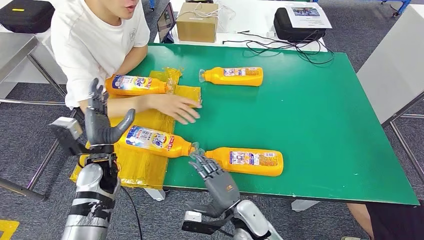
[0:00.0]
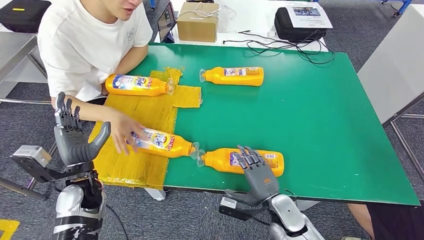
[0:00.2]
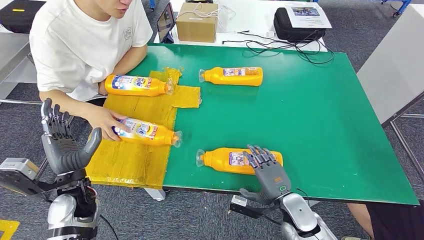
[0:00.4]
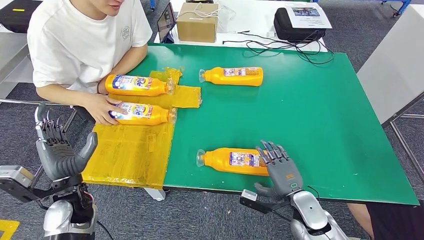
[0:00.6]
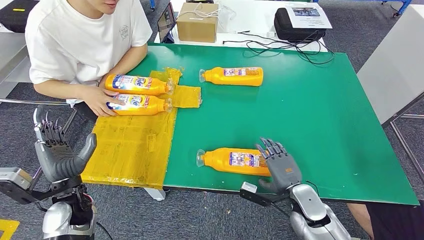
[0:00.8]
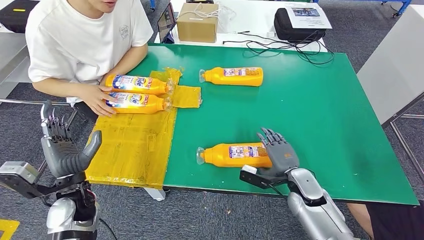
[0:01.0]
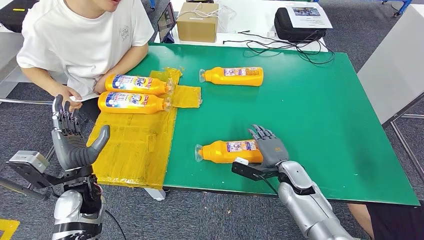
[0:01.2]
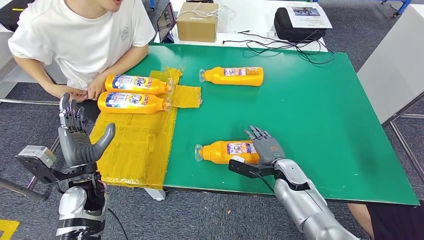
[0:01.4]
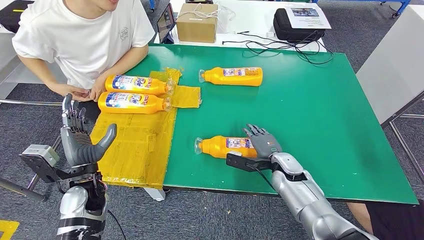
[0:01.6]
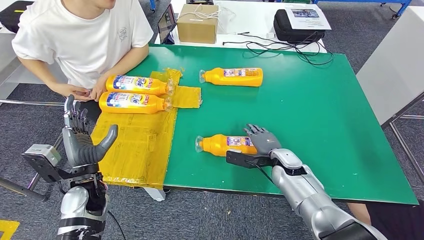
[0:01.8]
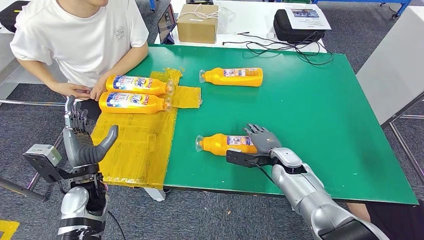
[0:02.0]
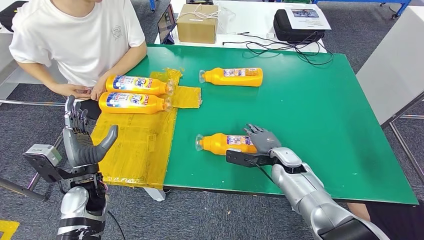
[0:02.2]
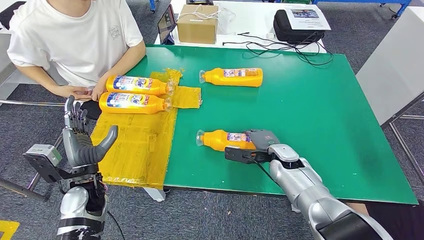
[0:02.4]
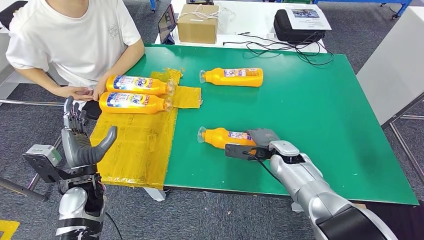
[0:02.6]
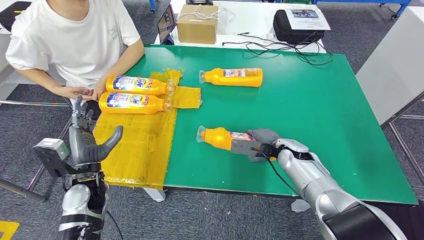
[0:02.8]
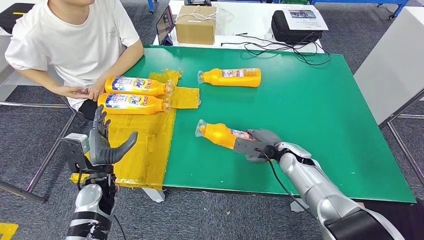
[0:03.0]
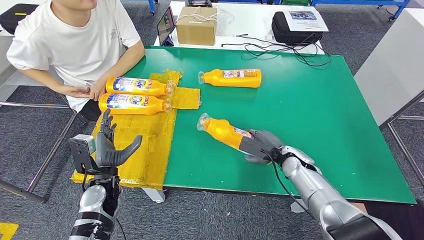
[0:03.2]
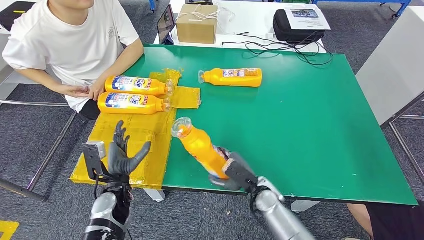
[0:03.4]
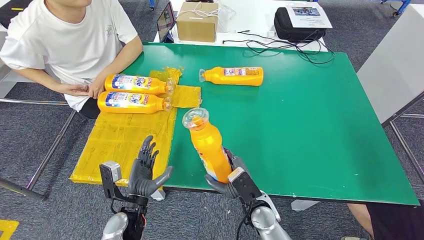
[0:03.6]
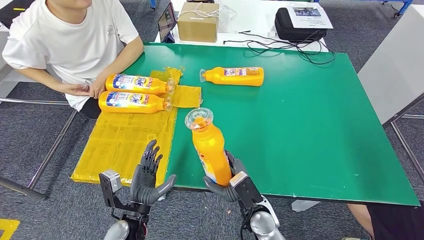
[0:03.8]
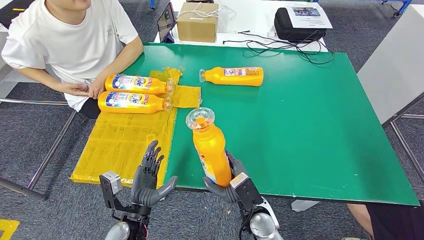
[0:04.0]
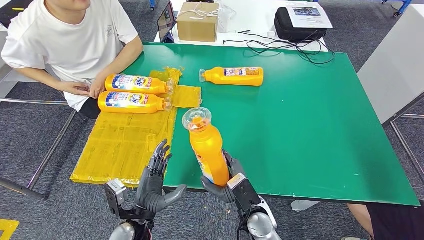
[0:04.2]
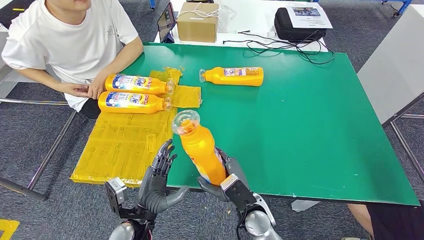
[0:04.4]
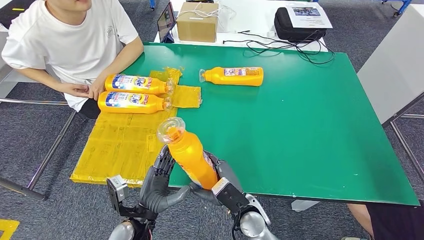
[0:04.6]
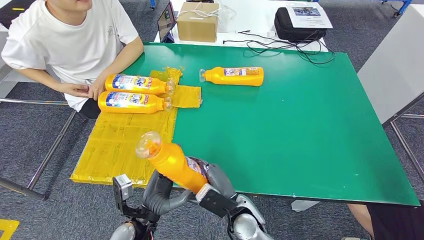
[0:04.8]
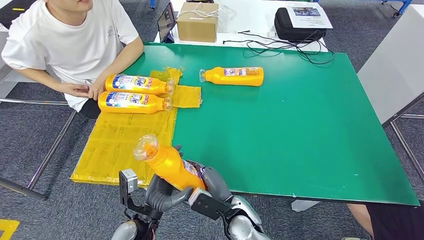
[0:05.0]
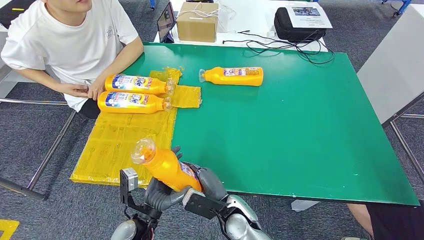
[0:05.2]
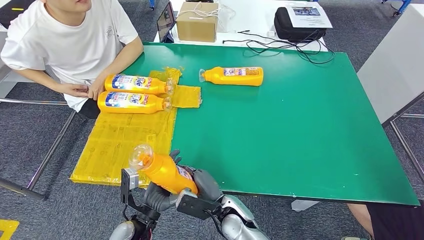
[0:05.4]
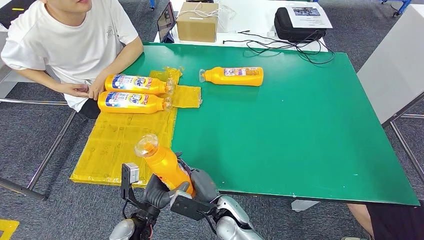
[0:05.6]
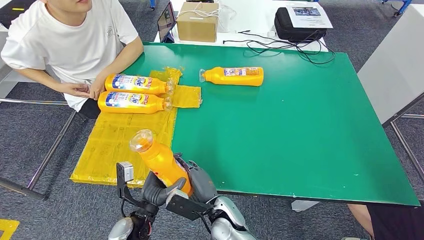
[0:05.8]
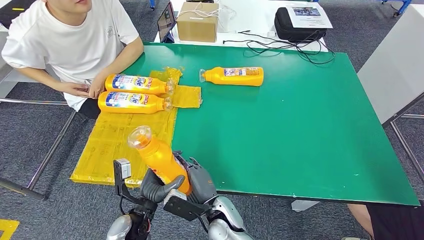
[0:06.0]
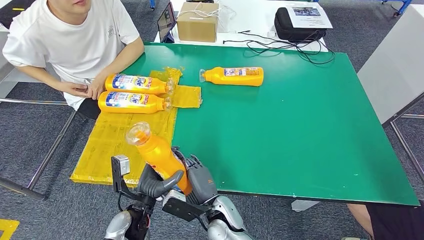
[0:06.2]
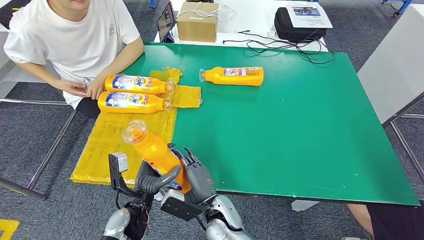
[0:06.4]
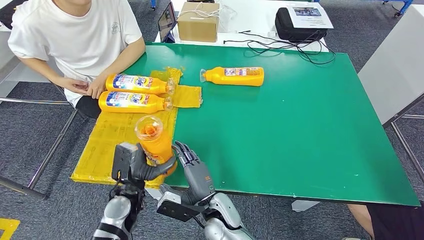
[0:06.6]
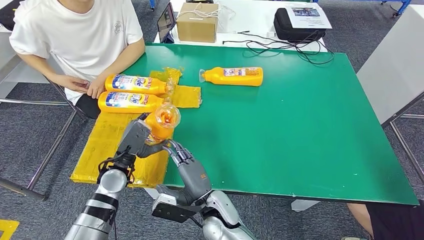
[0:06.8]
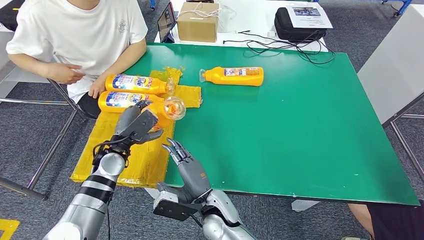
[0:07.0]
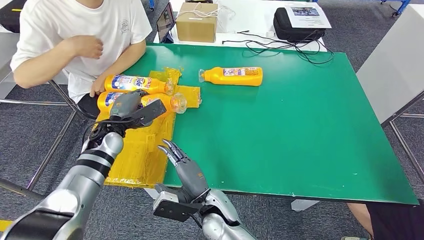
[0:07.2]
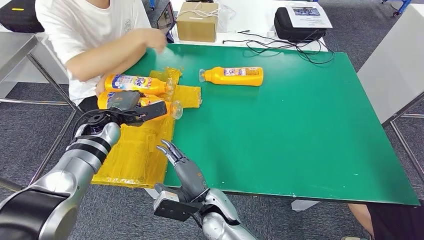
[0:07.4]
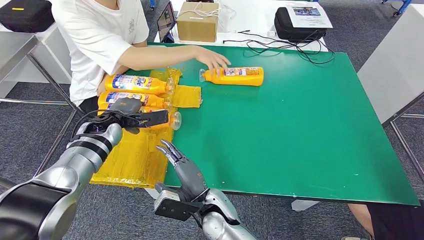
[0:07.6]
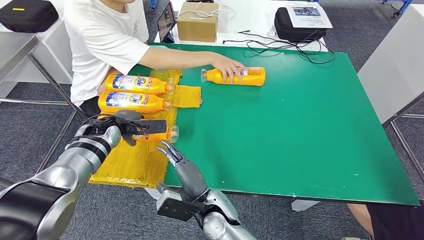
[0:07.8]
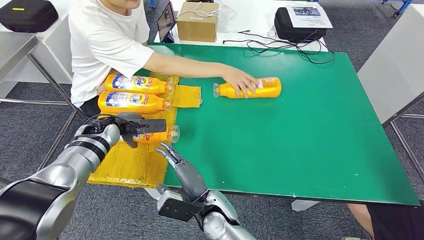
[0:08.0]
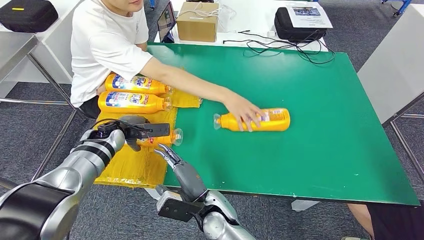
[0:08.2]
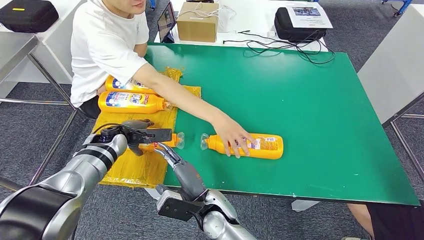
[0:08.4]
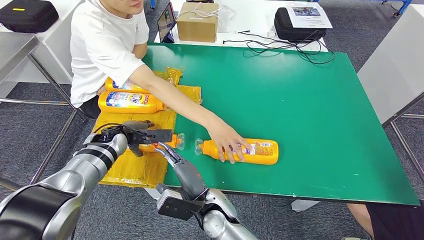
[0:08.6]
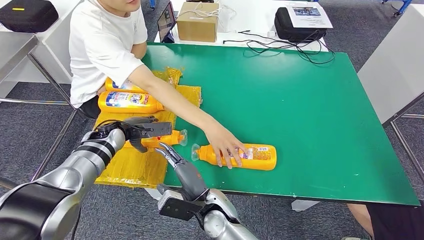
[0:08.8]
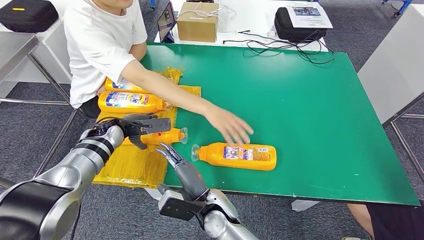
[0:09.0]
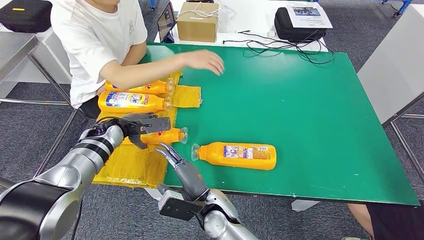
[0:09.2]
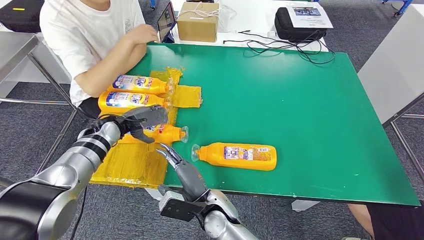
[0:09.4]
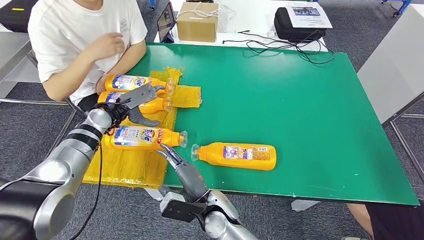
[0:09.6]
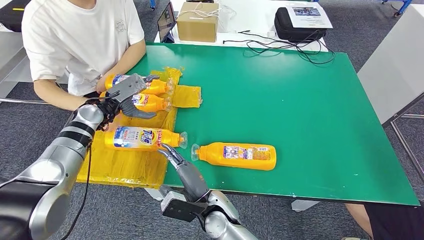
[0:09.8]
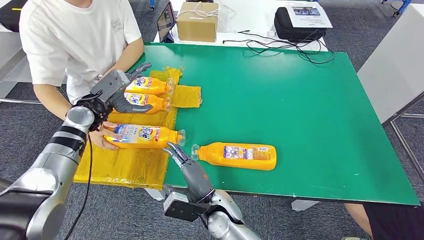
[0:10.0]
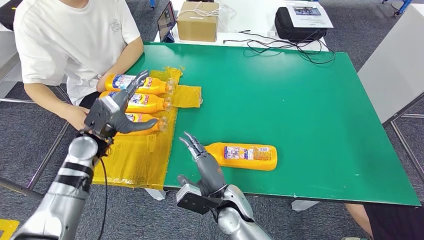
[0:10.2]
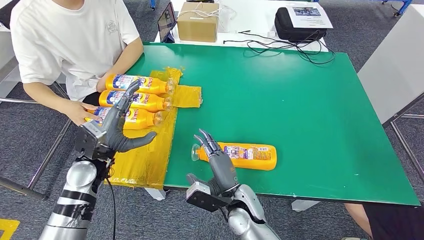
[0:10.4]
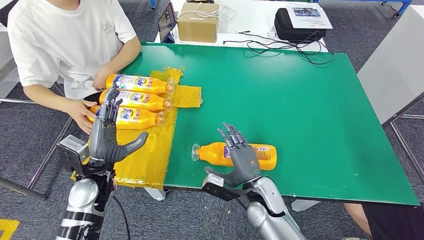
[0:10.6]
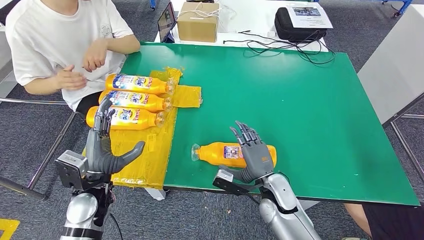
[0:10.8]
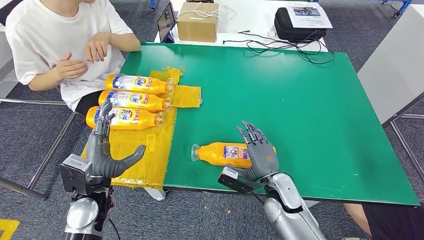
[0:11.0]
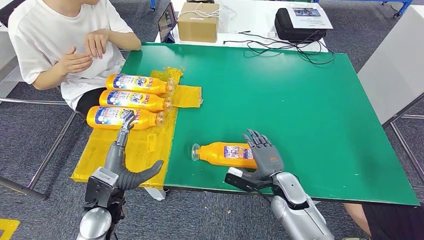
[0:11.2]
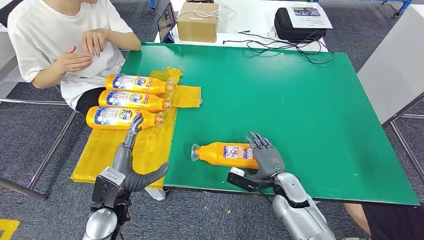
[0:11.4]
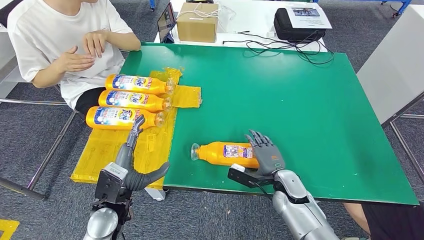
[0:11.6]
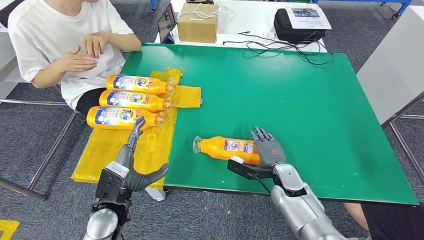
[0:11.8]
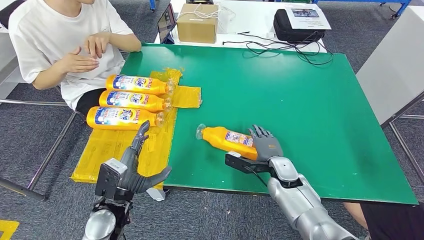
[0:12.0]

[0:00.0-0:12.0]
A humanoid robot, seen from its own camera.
Step, 0:00.0 to 0:05.0: Pick up the bottle from the table.
Step, 0:05.2 to 0:08.6: Flip the bottle to face forward.
0:04.4 to 0:06.0: The right hand goes some 10 cm to the left.
0:07.6 to 0:09.0: The hands stay close to where they were, moving slightly.

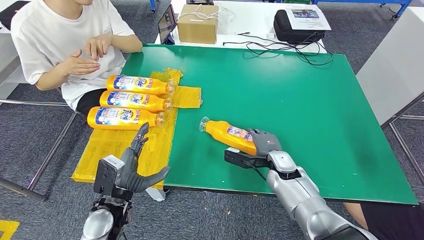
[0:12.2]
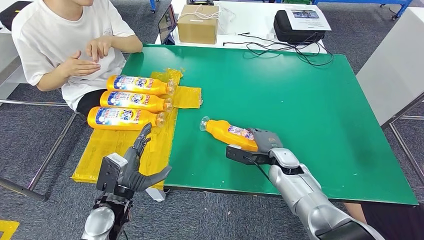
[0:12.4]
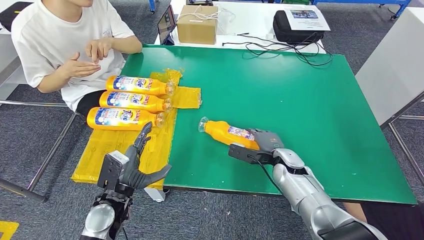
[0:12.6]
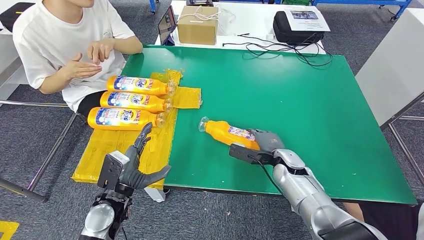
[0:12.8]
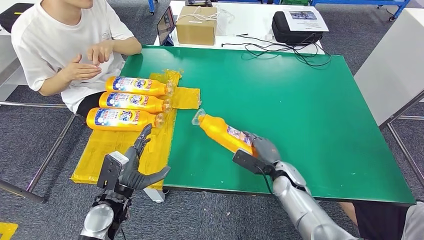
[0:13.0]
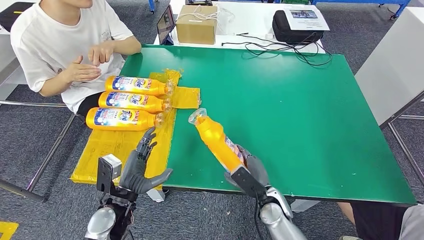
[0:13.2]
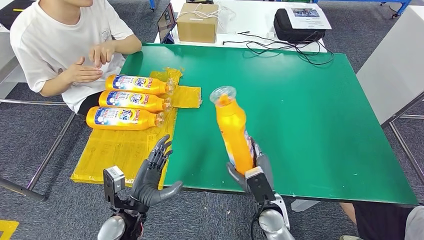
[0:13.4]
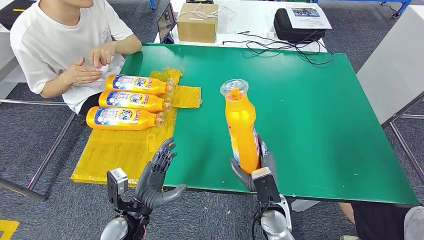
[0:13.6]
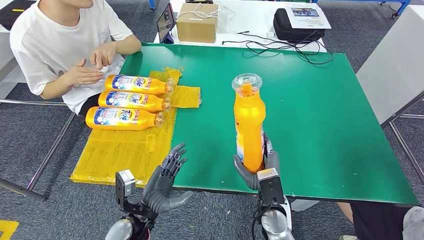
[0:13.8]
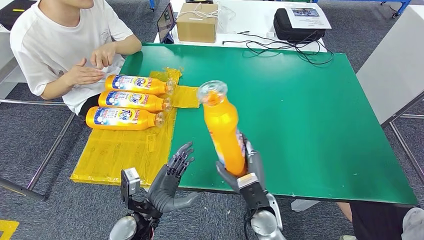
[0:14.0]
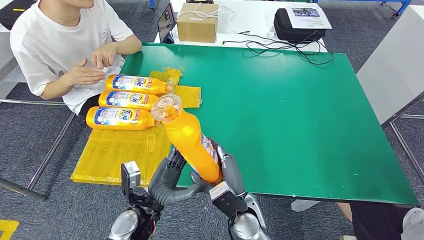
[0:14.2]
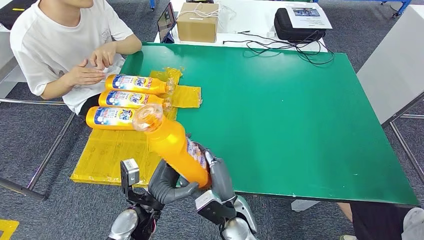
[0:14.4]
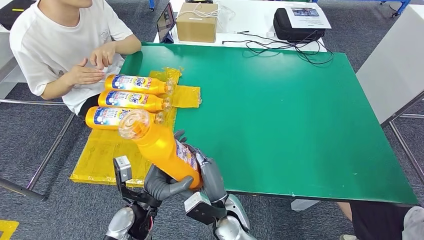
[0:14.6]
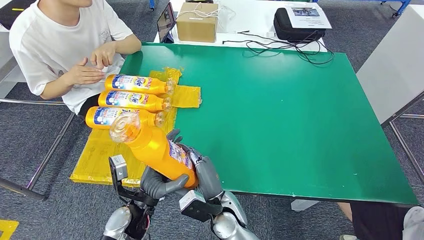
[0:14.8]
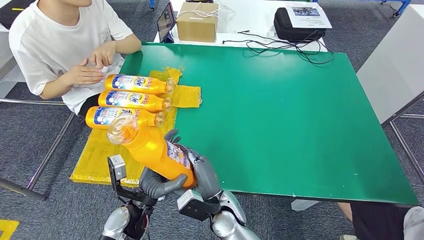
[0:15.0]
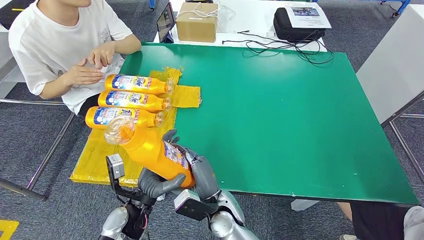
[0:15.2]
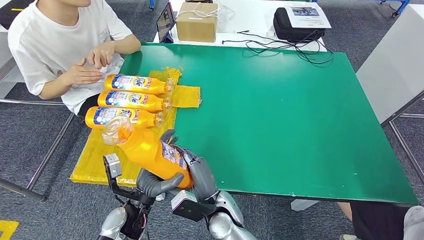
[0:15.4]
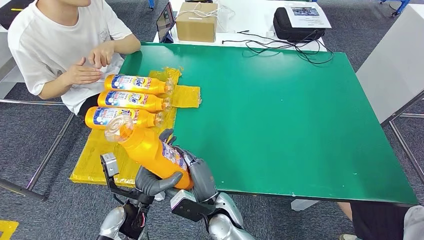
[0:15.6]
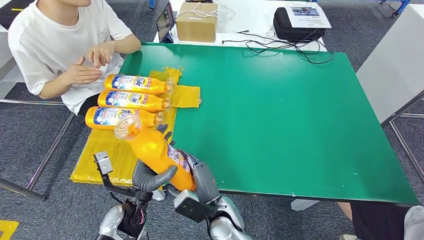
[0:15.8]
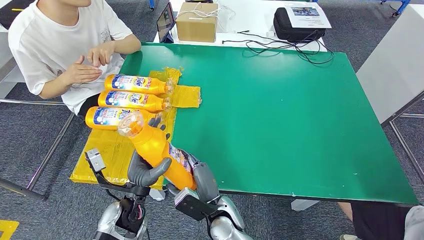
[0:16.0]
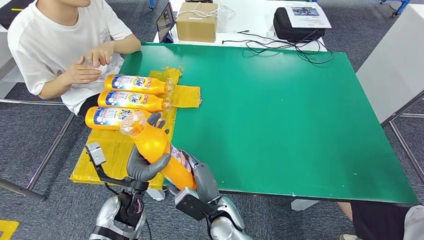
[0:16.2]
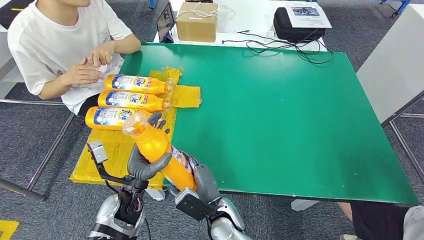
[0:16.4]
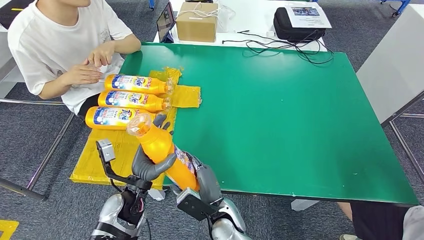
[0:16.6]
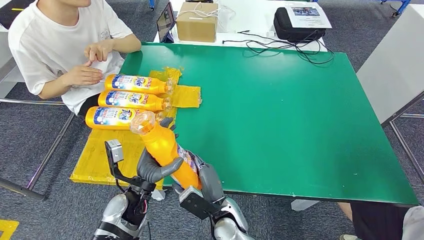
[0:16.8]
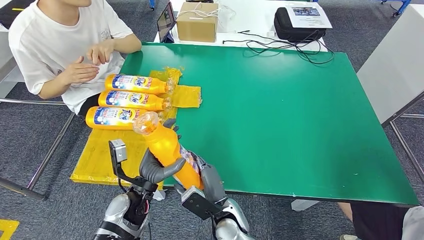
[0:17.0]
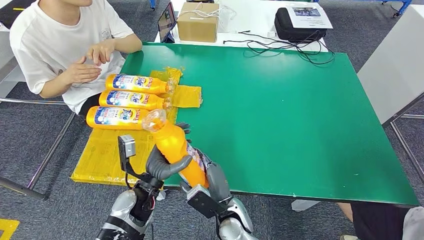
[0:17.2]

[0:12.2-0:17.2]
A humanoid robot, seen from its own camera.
Step, 0:12.2 to 0:14.4: Pick up the bottle from the table.
0:13.8 to 0:15.6: The right hand moves to the left, about 15 cm.
0:15.6 to 0:17.2: The hands stay close to where they were, moving slightly.
